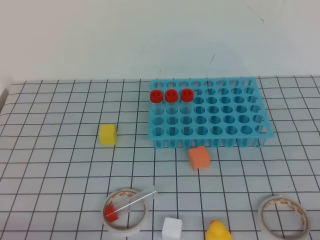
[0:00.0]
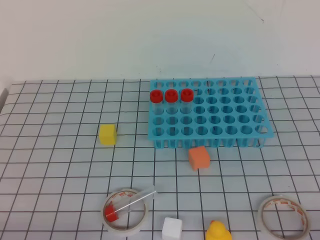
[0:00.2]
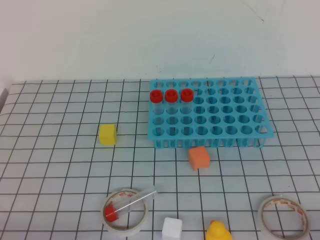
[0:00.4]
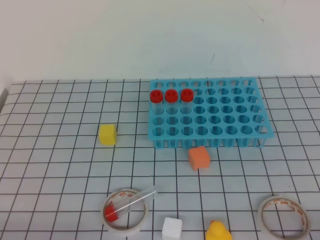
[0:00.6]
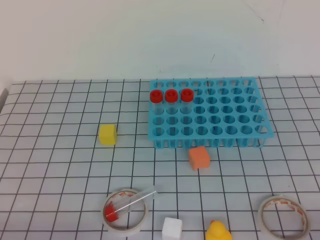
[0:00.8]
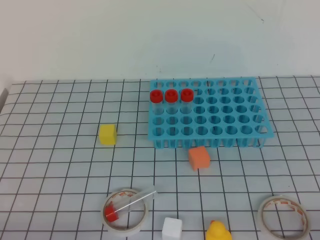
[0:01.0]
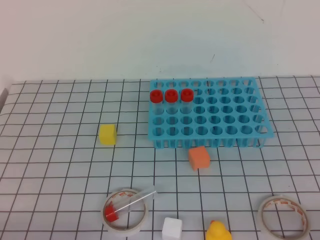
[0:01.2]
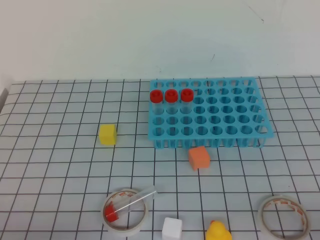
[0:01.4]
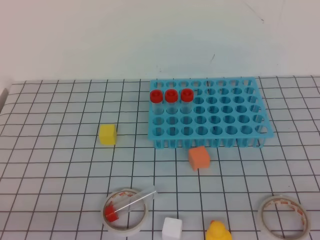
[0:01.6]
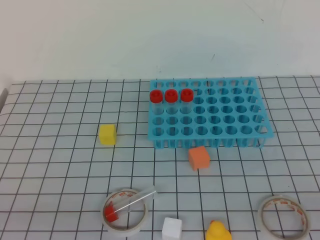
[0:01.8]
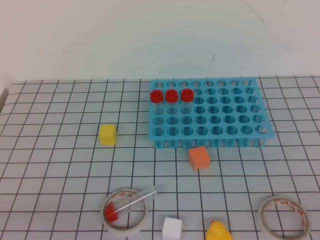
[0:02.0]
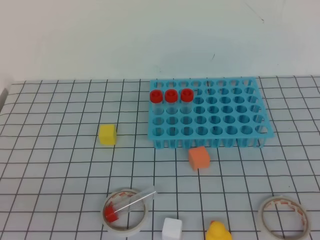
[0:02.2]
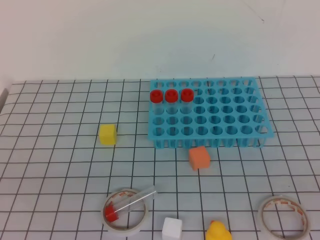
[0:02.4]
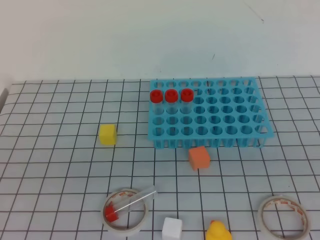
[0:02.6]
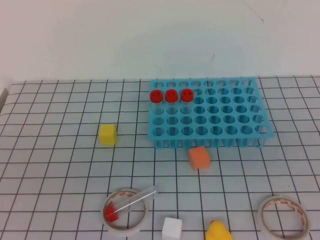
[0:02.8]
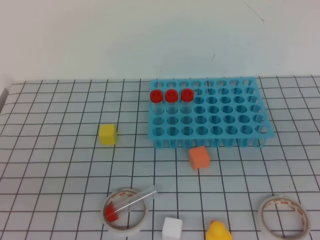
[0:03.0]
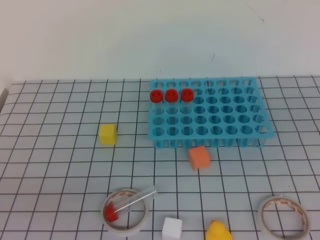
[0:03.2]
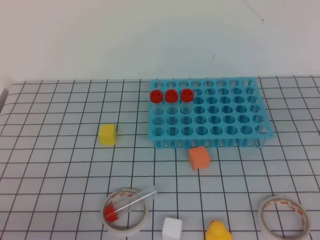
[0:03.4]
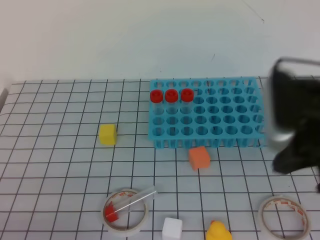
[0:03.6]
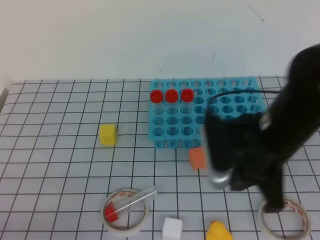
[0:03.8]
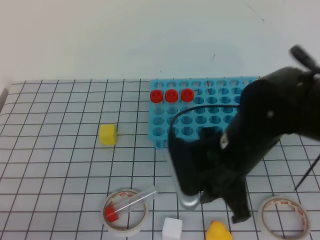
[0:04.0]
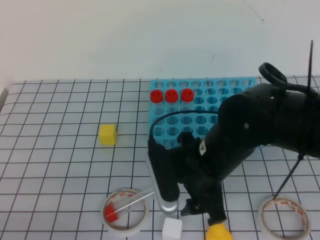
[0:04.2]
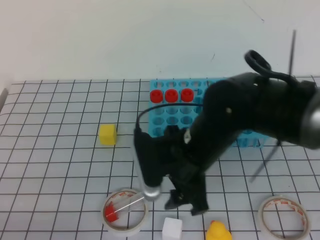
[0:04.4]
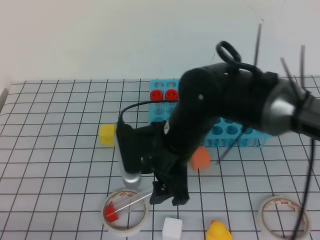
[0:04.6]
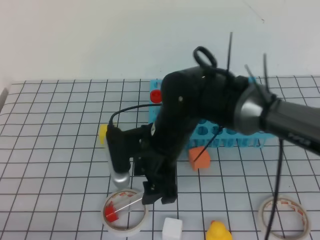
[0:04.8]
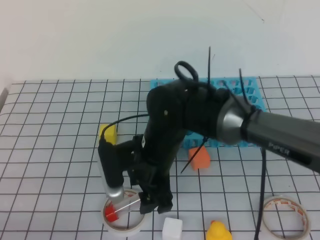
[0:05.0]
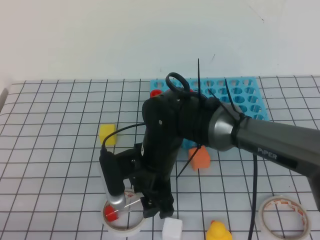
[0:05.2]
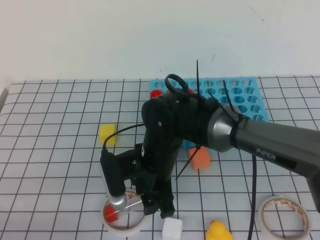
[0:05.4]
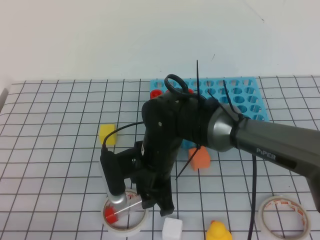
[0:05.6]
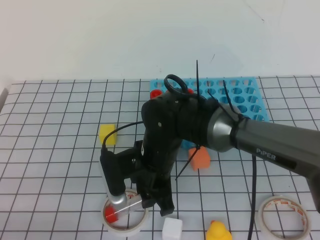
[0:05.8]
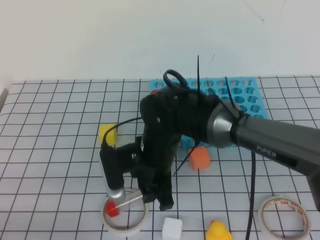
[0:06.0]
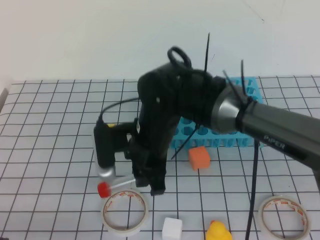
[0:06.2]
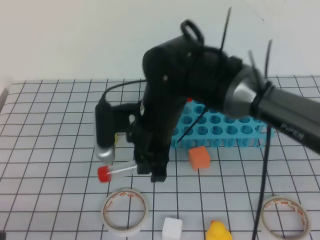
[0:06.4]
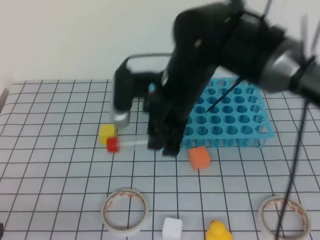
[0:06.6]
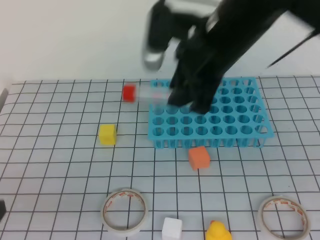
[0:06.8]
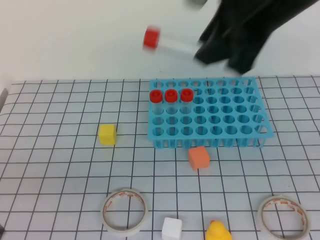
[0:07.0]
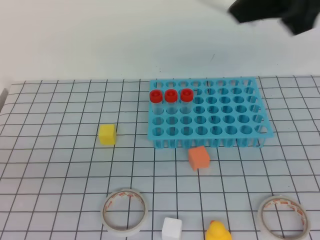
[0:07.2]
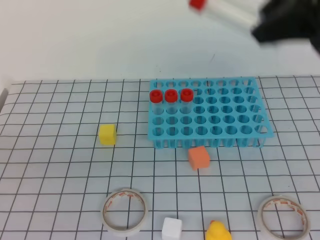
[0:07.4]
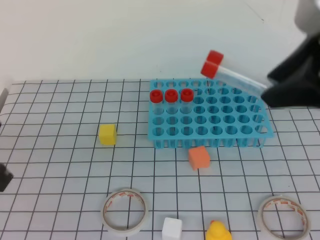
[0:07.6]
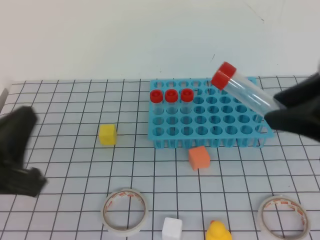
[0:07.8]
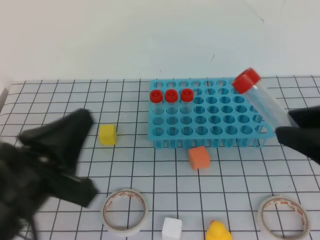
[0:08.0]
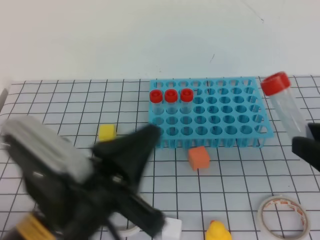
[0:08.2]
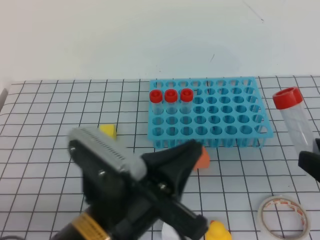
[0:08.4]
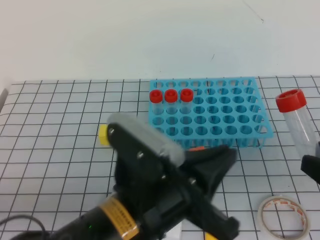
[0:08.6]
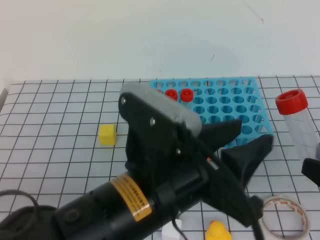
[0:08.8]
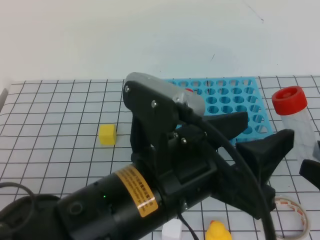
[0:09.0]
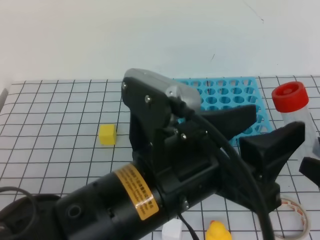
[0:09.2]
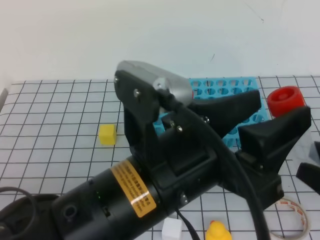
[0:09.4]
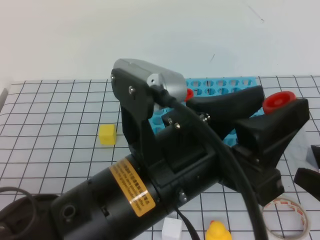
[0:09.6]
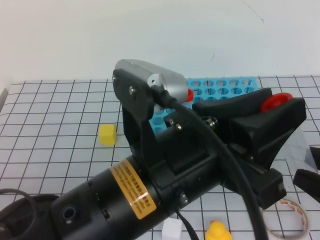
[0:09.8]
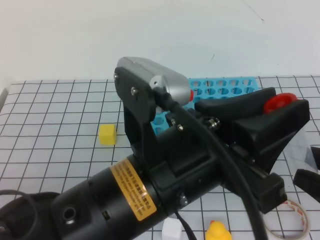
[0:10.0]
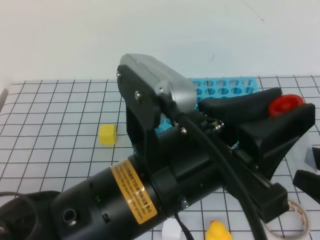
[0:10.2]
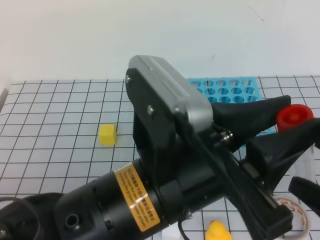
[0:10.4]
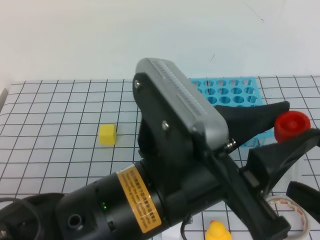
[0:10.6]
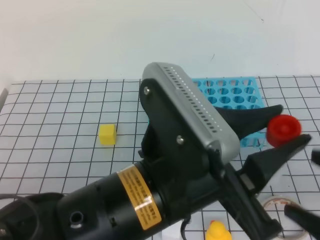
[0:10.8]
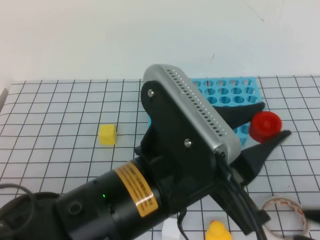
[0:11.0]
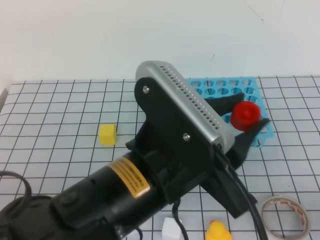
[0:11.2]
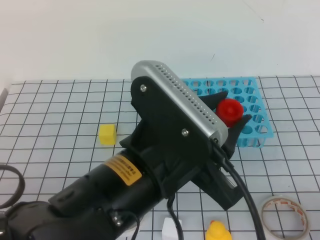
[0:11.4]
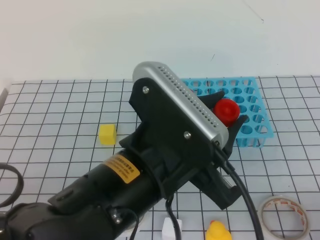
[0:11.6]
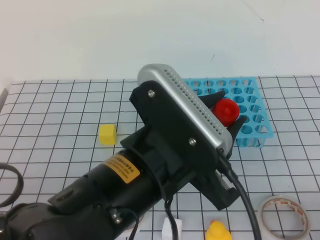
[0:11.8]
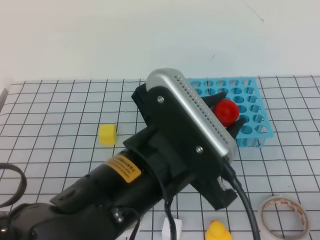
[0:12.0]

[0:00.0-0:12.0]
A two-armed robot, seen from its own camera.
0:03.0 to 0:04.4: The left gripper shifts approximately 10 cm downward; the right gripper moves to the left, forward and downward, about 35 cm, and opens.
0:04.4 to 0:06.0: The right gripper heads to the left, covering about 5 cm, and closes up.
0:06.0 to 0:07.6: The left gripper heads upward, covering some 5 cm. The right gripper heads upward and to the right, covering approximately 35 cm.
0:07.6 to 0:09.0: The right gripper travels downward, backward and to the right by some 20 cm. Meanwhile the left gripper heads to the right, covering some 20 cm, and opens its fingers.
0:09.0 to 0:10.4: The right gripper opens up.
0:10.4 to 0:12.0: The right gripper goes some 5 cm downward, and closes up.

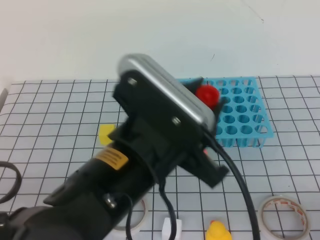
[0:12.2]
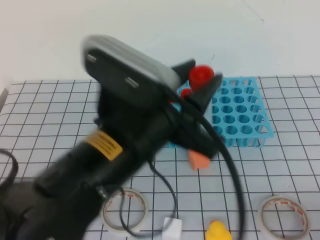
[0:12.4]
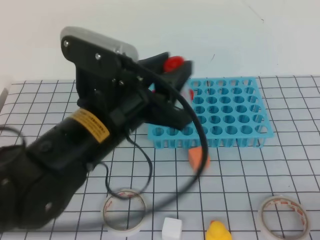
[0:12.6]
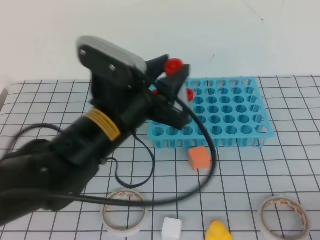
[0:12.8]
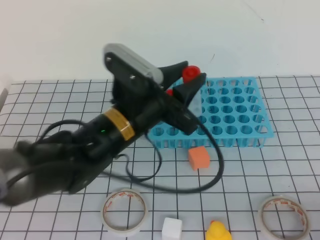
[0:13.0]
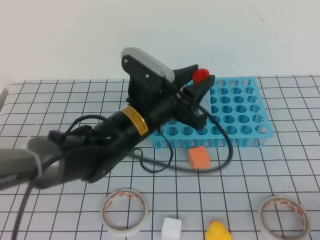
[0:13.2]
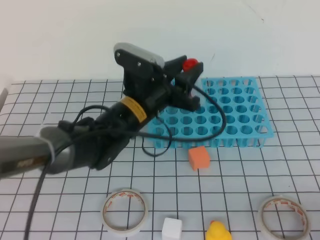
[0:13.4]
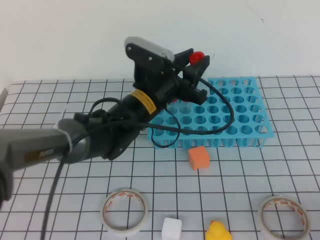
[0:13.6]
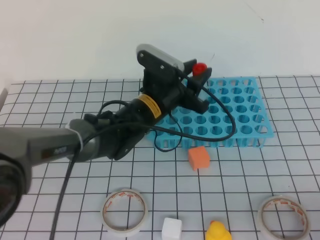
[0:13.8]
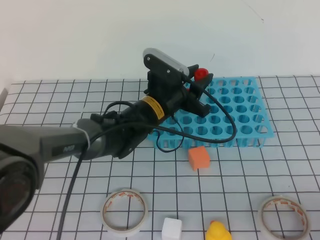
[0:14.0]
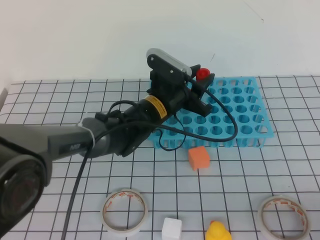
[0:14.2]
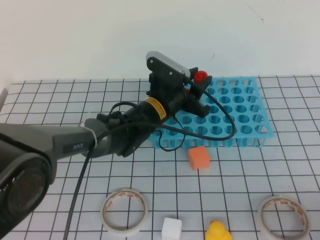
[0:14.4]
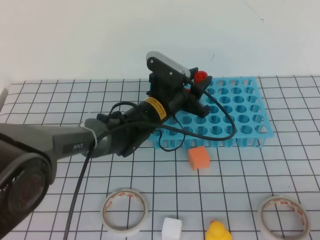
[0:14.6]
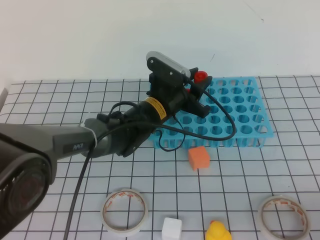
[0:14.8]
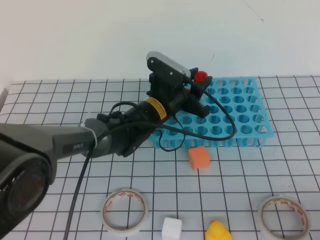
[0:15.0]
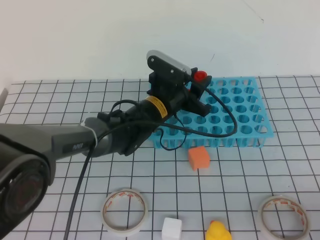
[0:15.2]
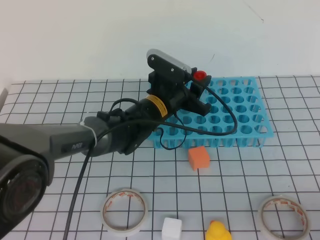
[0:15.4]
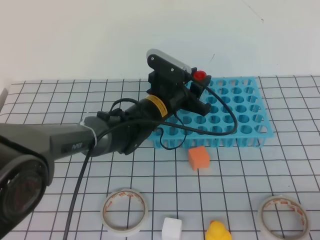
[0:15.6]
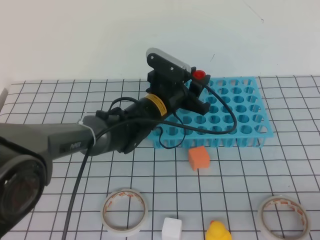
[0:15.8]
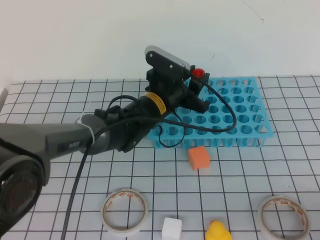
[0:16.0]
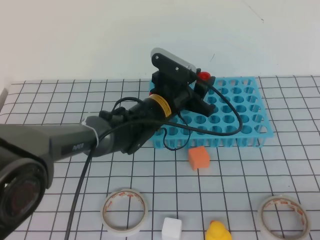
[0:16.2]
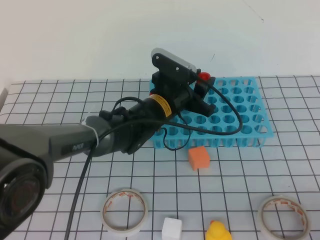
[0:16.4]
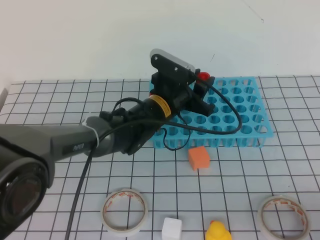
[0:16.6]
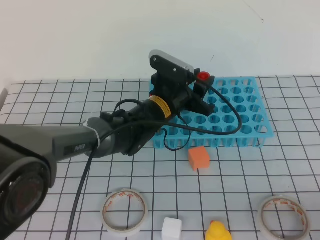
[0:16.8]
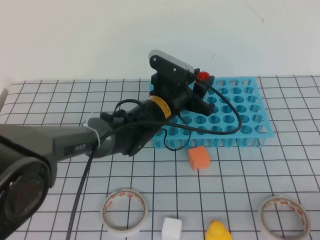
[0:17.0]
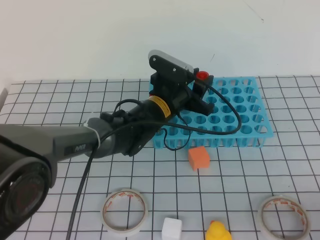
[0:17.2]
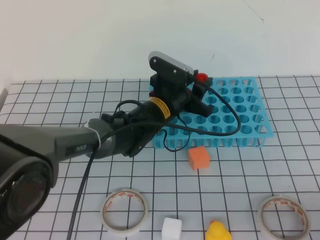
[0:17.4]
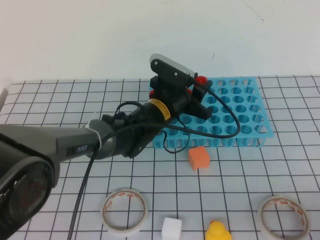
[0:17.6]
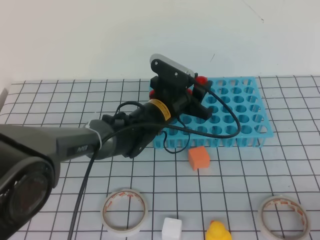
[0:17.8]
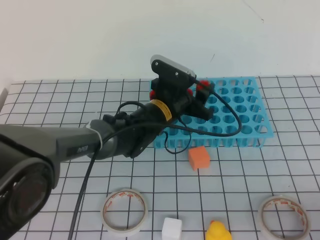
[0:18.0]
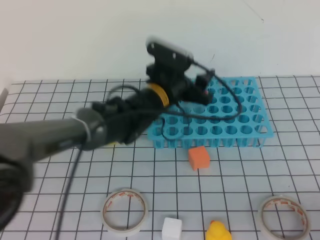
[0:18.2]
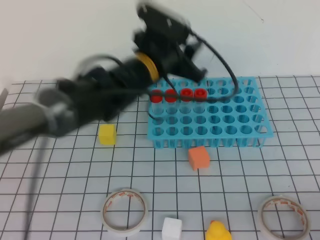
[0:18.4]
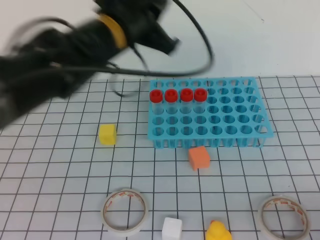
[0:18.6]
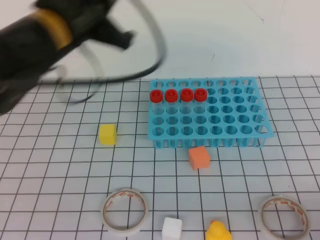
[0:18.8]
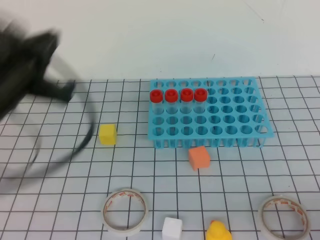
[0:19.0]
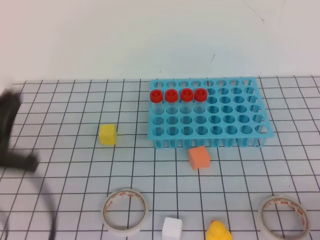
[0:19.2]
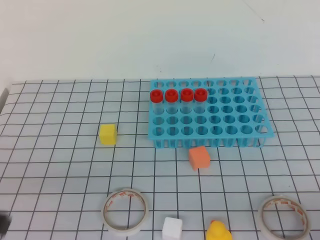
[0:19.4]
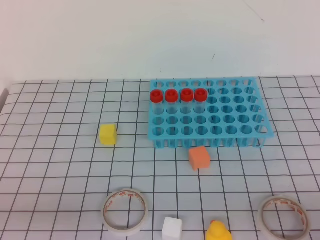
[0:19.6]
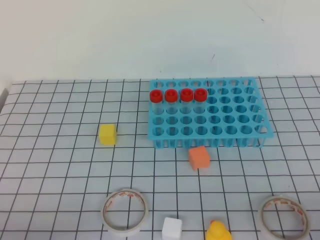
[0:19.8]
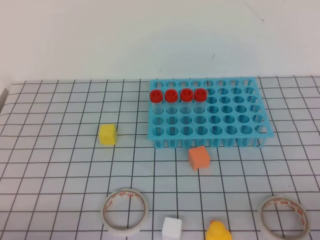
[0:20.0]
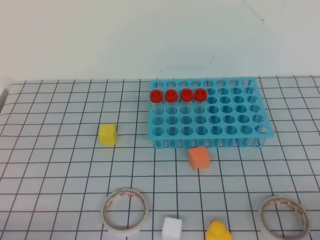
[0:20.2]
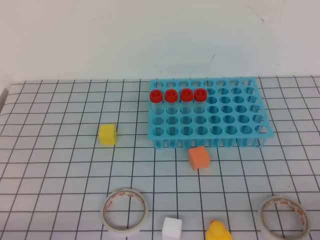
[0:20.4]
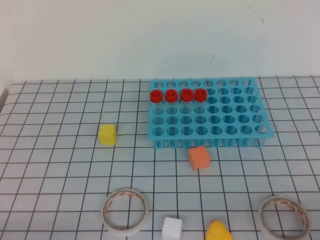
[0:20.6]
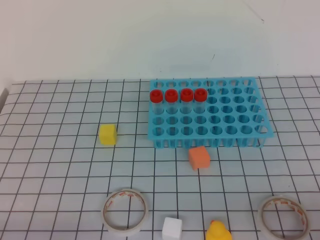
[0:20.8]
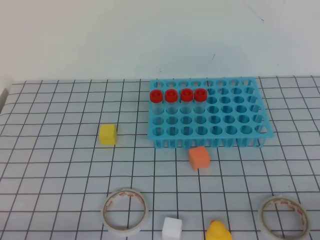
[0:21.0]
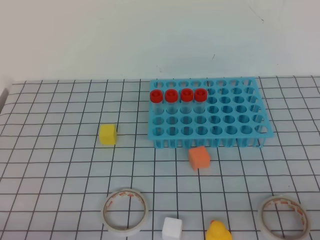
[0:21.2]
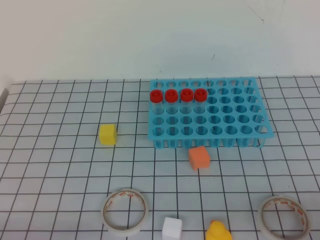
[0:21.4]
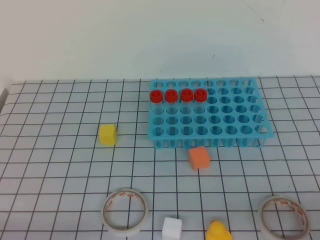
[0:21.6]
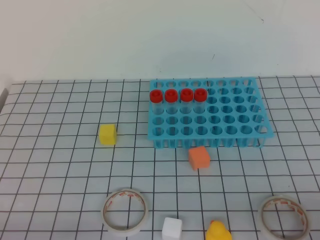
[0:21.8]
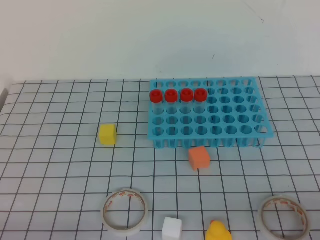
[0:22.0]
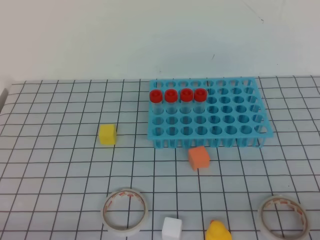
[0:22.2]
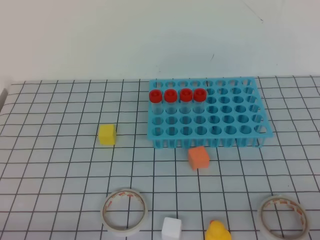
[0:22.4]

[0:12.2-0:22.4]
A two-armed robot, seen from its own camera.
0:12.2 to 0:13.6: The left gripper moves forward and downward, about 25 cm.
0:13.6 to 0:15.2: The left gripper moves roughly 5 cm.
0:15.2 to 0:18.0: The two grippers keep their place.
0:18.0 to 0:19.4: The left gripper moves backward and to the left, about 40 cm, and closes.
0:19.4 to 0:21.0: The left gripper travels downward and backward by approximately 15 cm.
